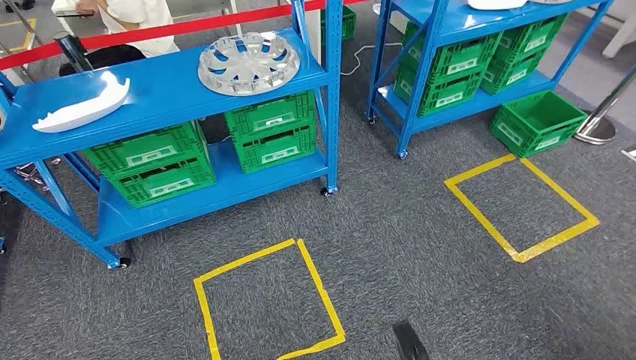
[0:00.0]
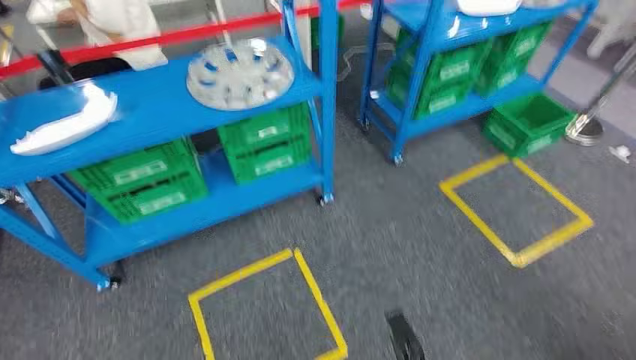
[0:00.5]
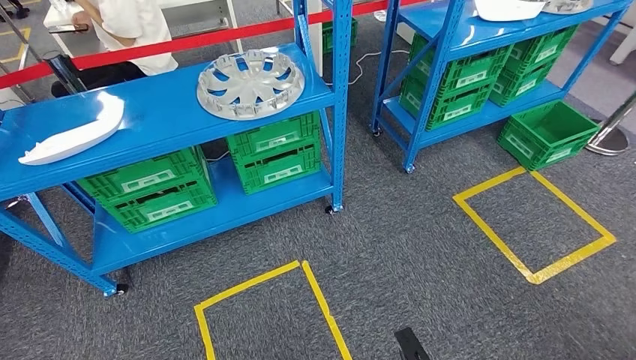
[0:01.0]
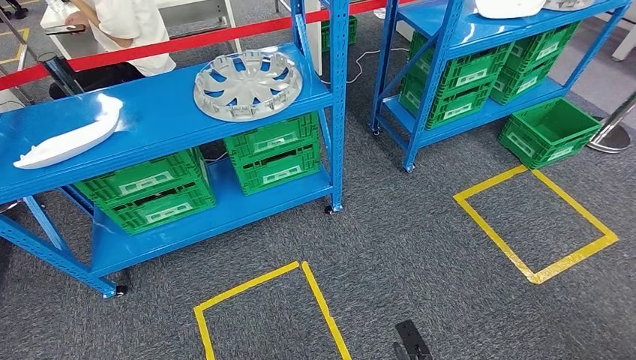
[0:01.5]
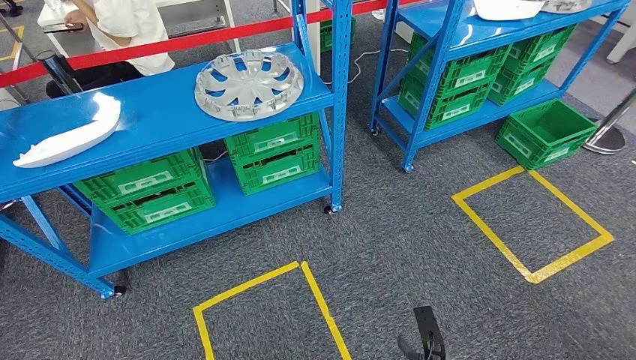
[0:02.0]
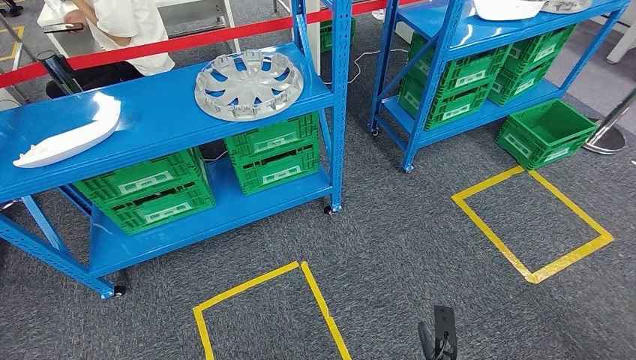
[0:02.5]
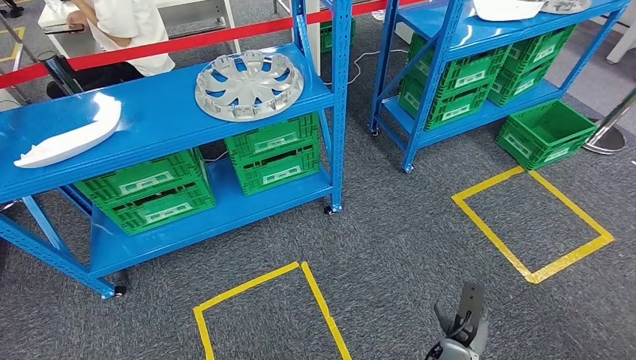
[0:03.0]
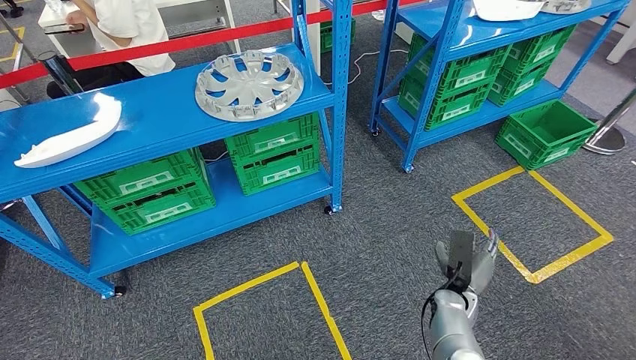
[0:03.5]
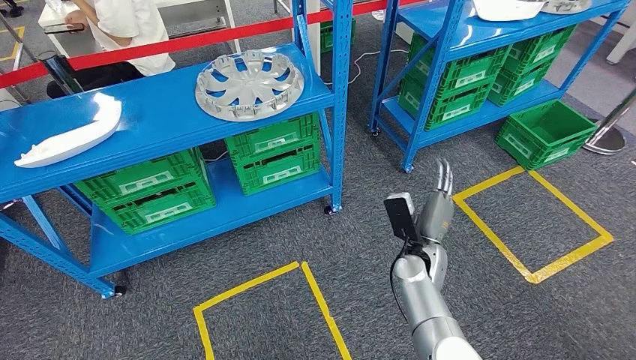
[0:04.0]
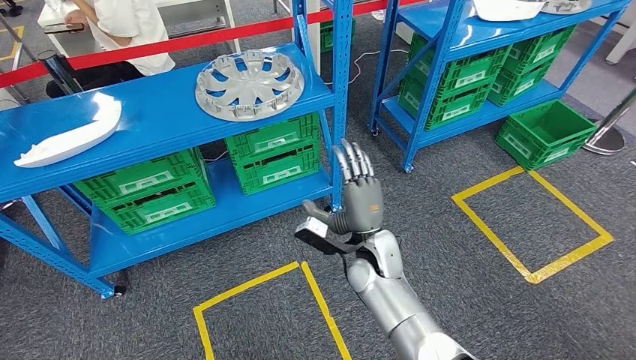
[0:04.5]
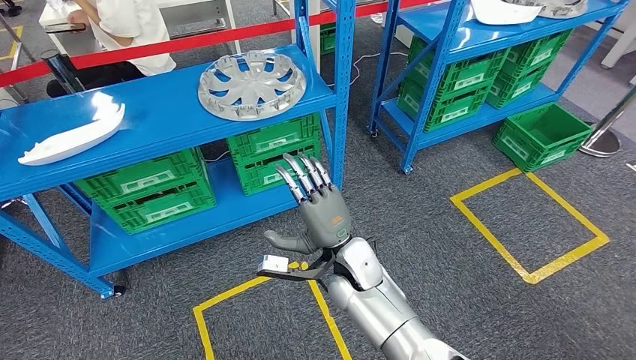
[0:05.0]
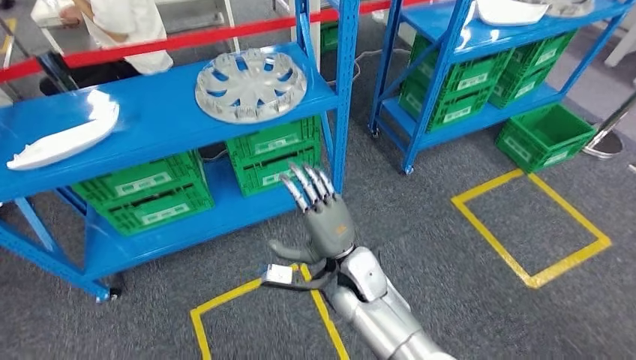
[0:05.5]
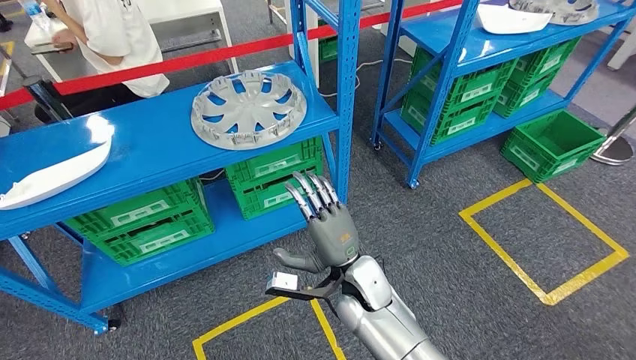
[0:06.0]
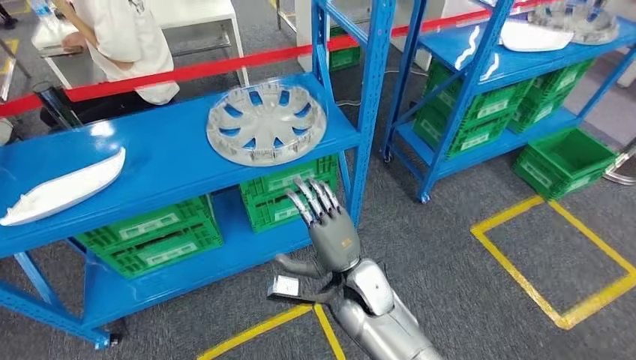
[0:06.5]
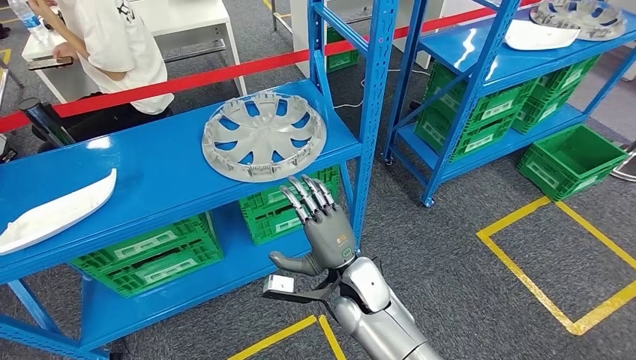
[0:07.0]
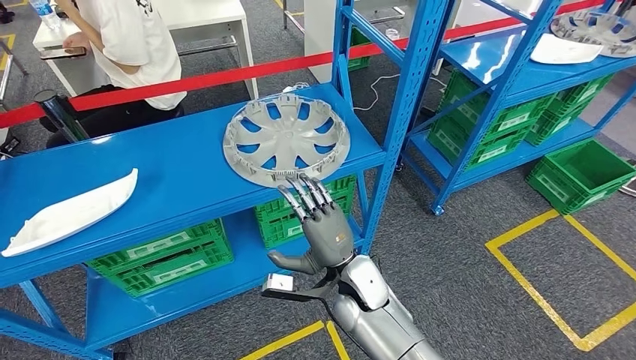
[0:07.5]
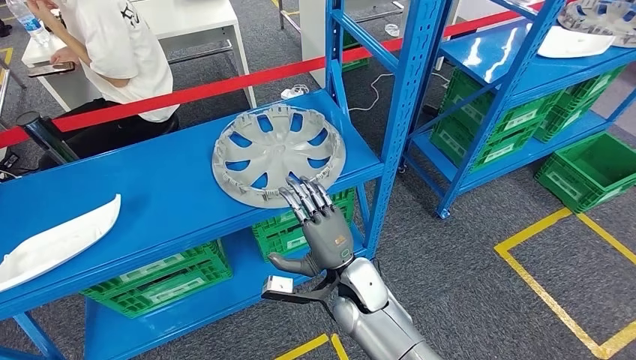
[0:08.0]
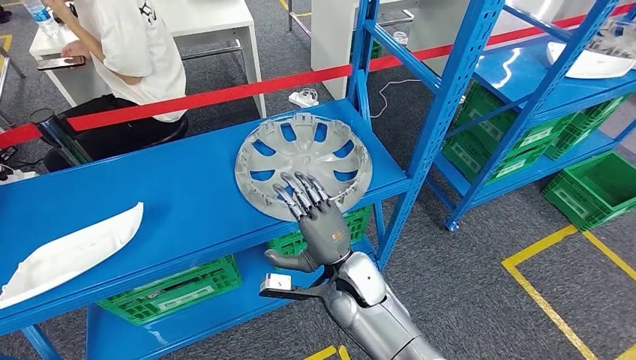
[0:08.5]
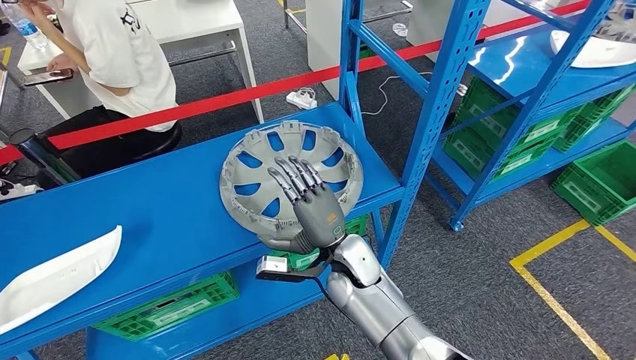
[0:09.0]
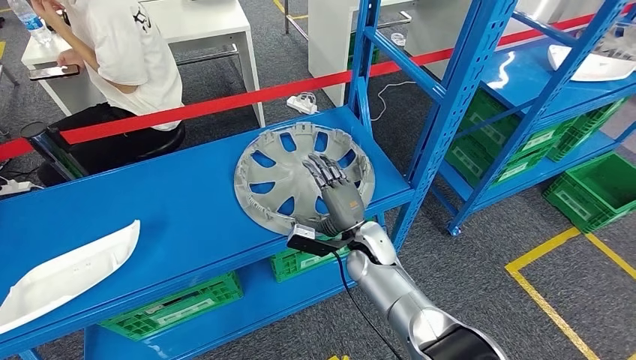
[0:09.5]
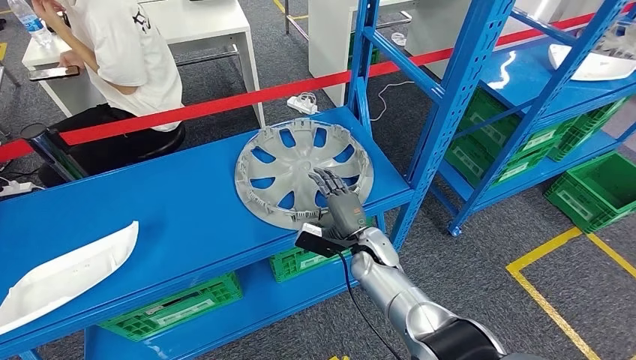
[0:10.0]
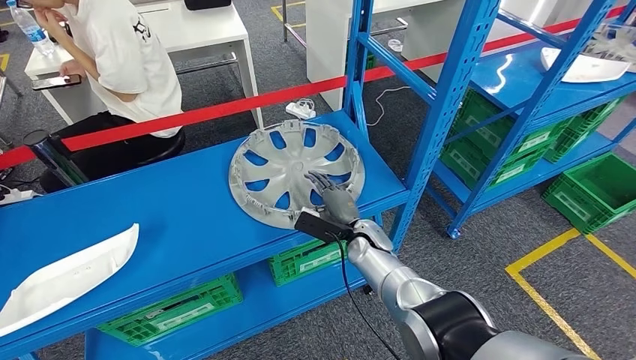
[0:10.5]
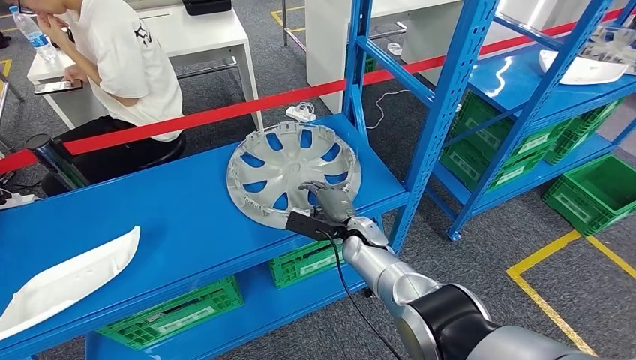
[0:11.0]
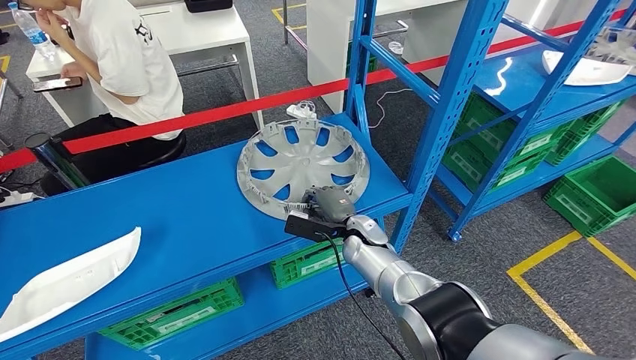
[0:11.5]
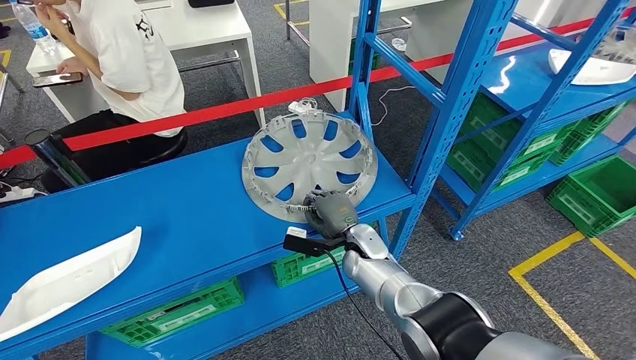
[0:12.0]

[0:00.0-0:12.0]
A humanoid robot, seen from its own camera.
0:02.0 to 0:04.0: The left hand moves to the right, some 5 cm; the right hand is displaced forward and upward by roughly 25 cm.

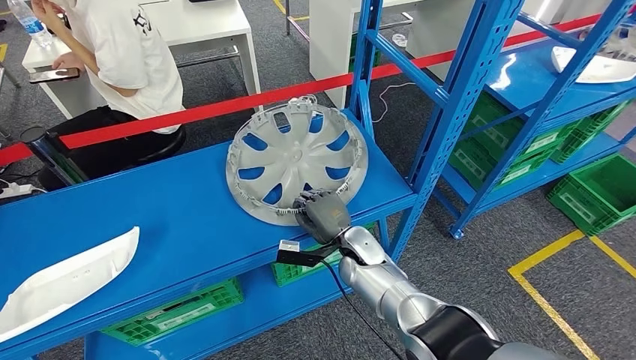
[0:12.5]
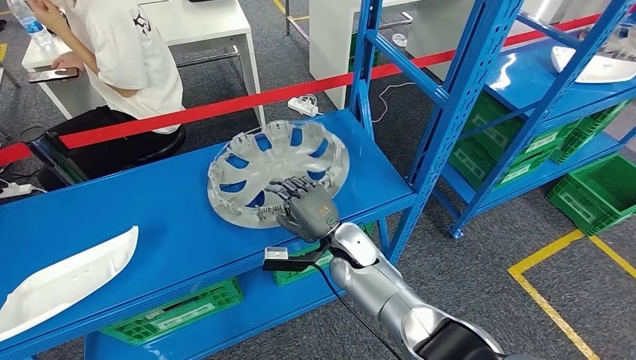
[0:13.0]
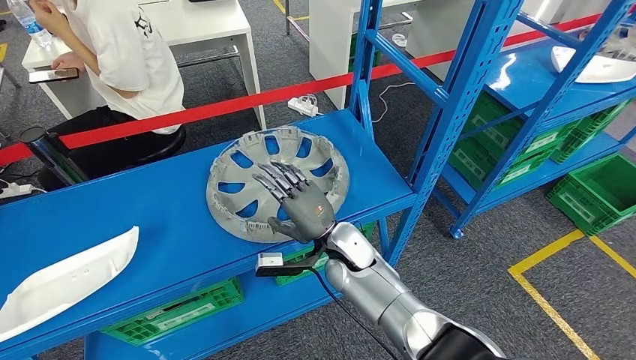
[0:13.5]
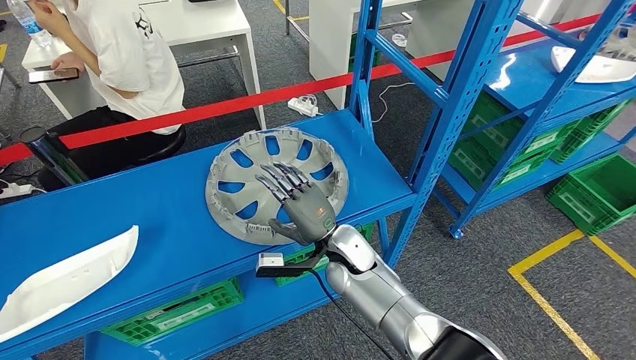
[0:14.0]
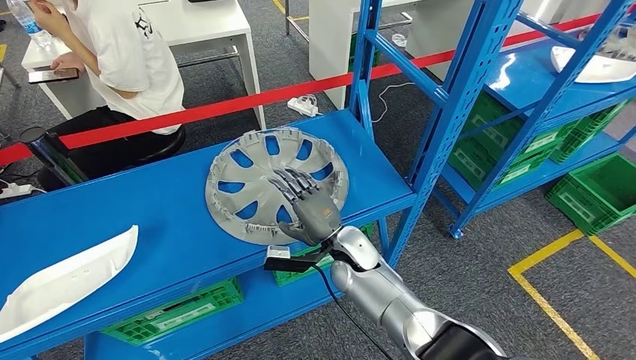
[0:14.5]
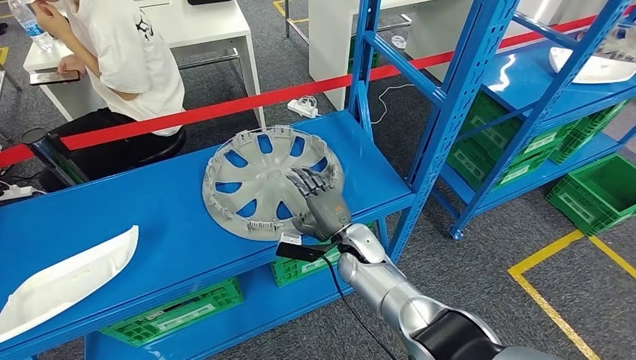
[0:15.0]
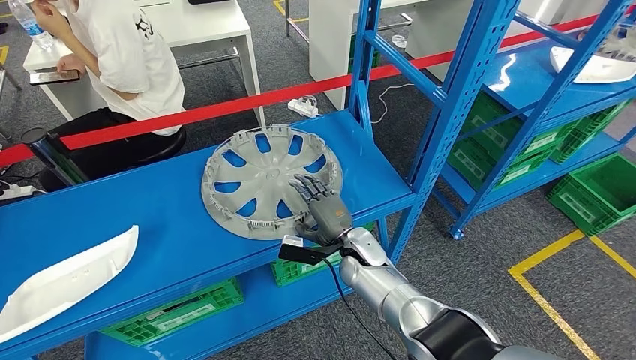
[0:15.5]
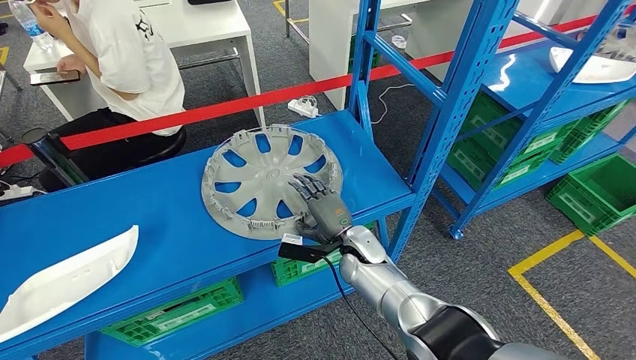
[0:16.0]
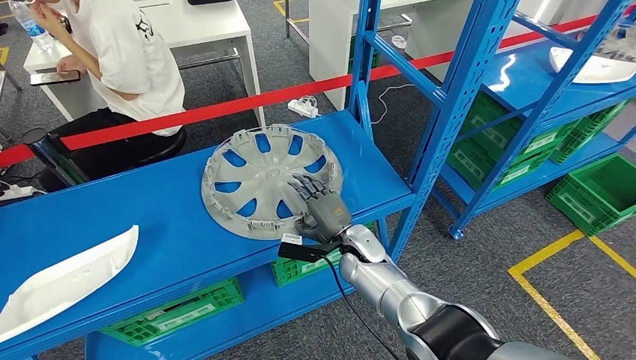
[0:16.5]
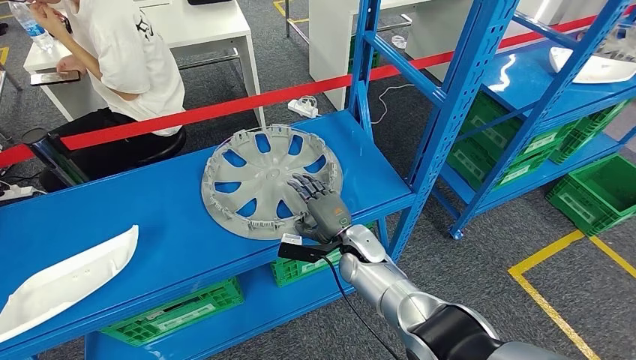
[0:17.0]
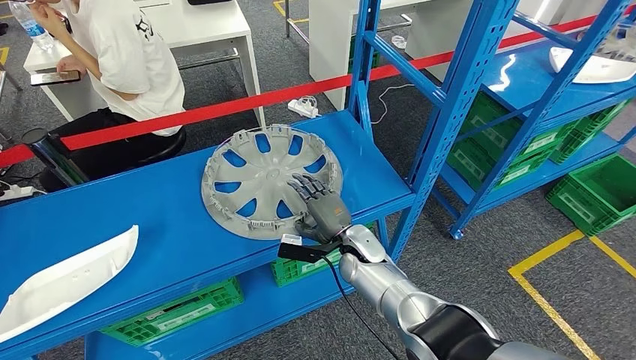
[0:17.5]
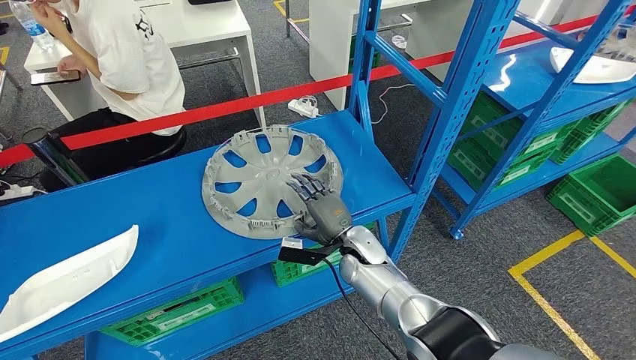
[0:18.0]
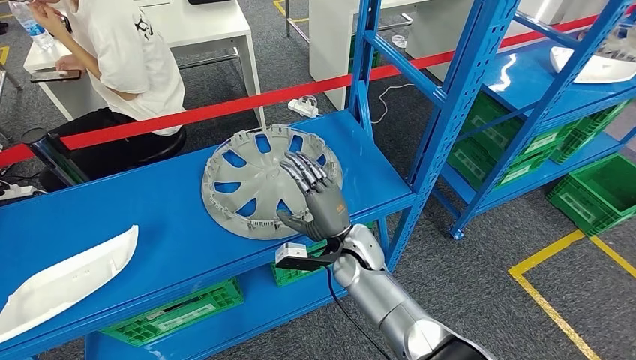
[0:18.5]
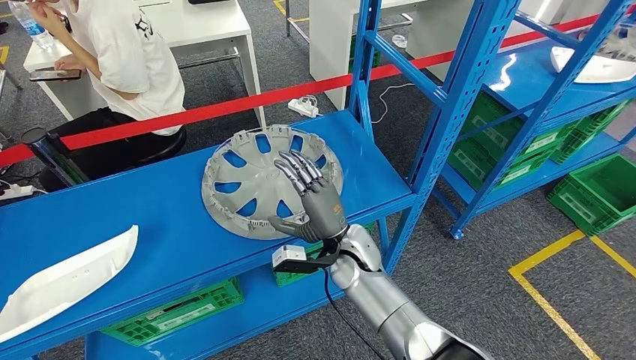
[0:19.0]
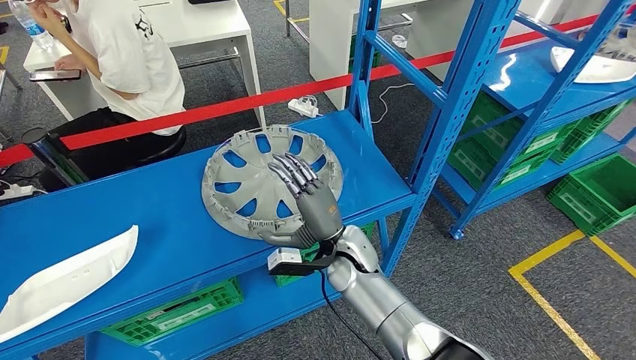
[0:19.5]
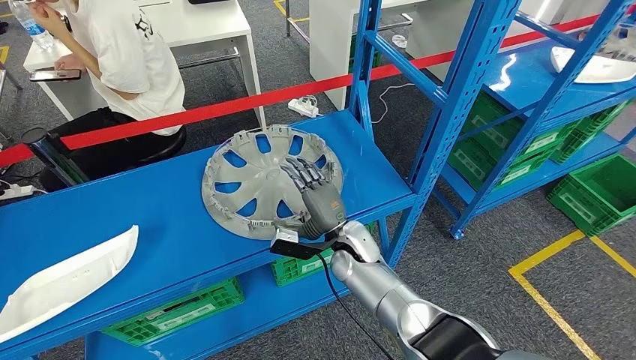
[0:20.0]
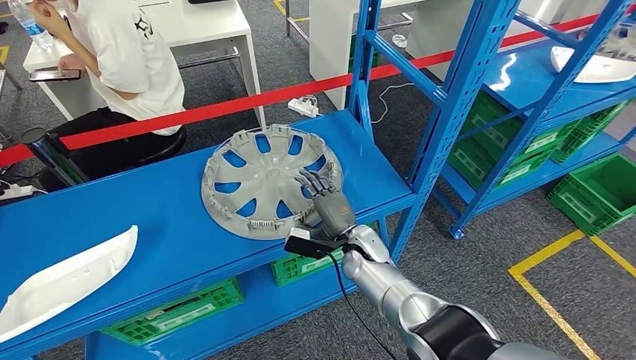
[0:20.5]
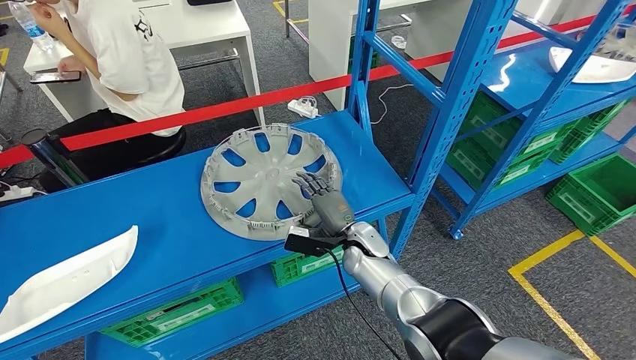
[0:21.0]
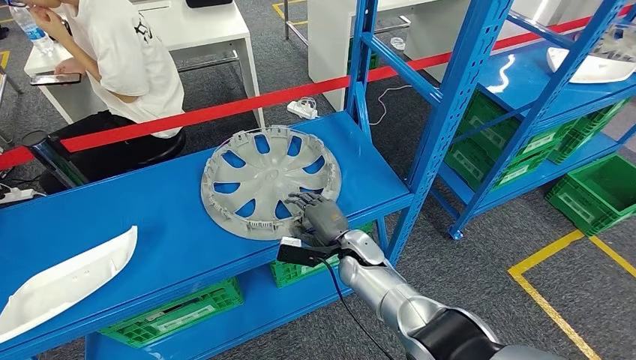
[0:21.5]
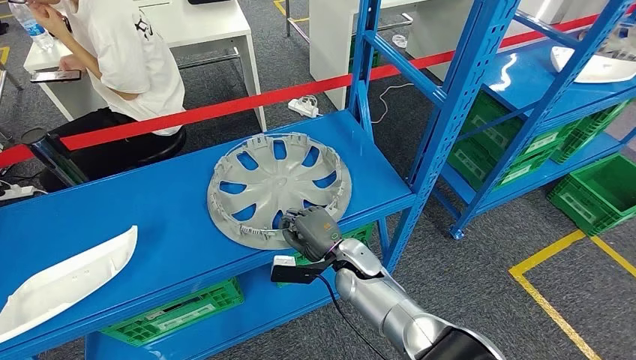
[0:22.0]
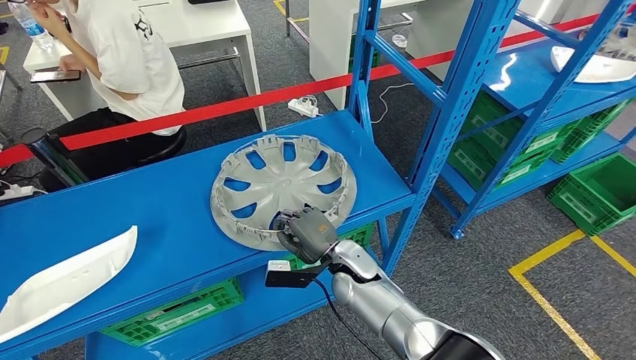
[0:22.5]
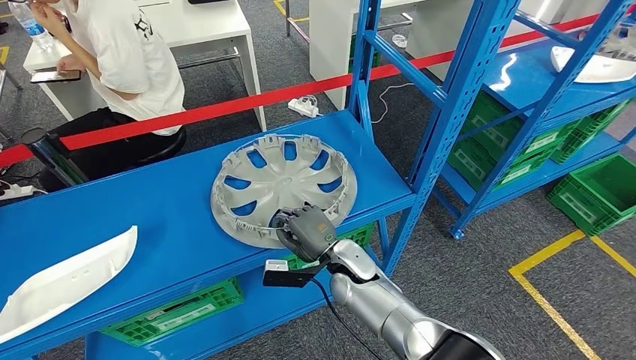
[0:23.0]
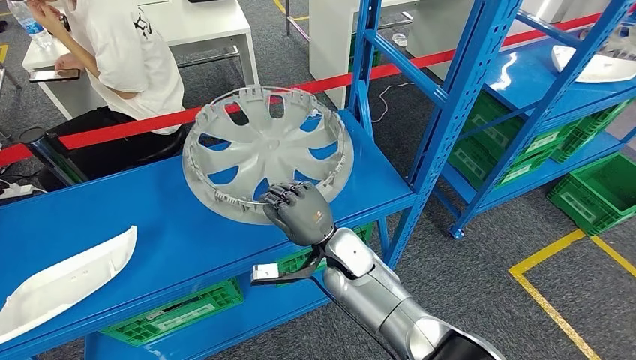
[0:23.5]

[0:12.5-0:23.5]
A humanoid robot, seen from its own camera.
0:14.5 to 0:16.0: There are only small adjustments of the hands.
0:16.0 to 0:18.0: The two hands keep their place.
